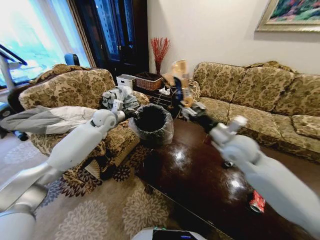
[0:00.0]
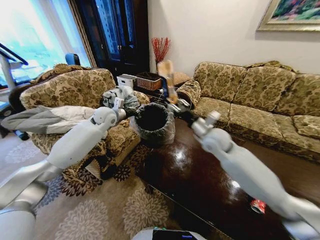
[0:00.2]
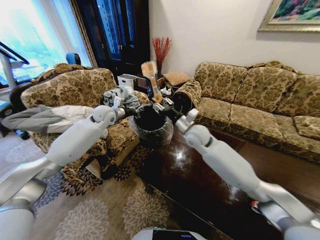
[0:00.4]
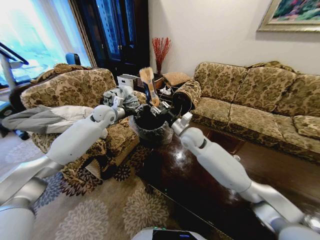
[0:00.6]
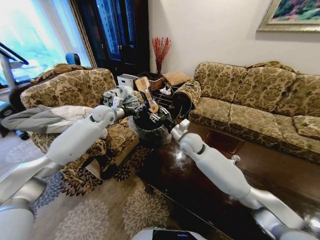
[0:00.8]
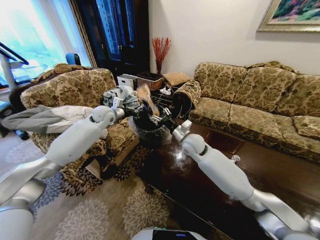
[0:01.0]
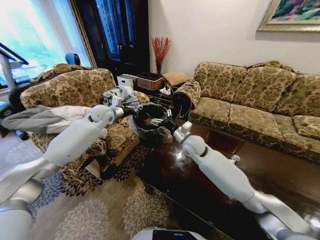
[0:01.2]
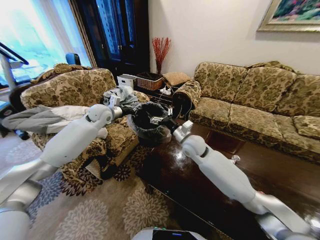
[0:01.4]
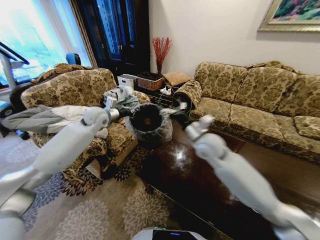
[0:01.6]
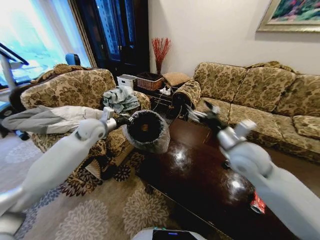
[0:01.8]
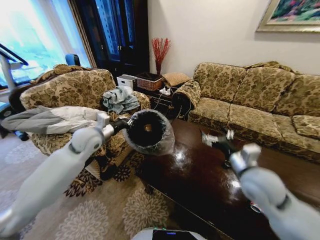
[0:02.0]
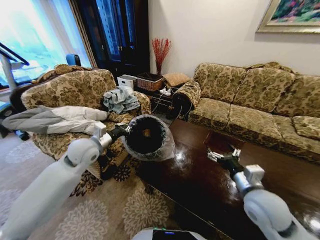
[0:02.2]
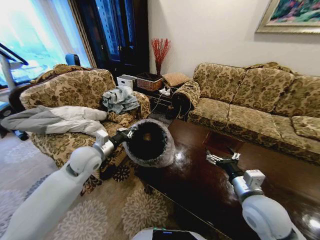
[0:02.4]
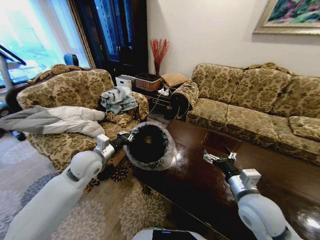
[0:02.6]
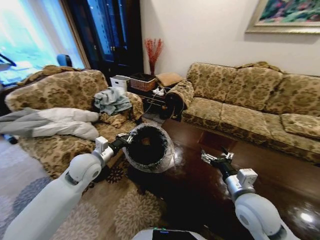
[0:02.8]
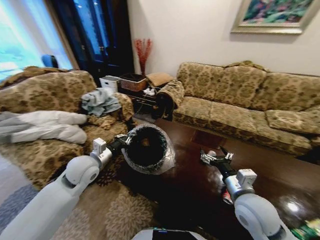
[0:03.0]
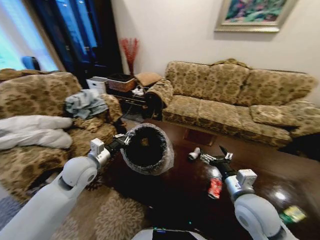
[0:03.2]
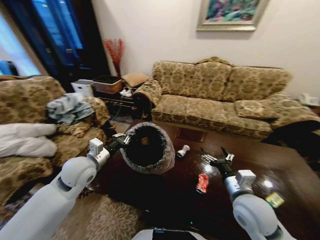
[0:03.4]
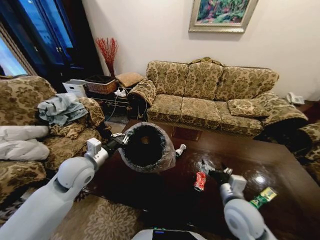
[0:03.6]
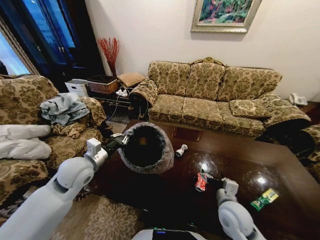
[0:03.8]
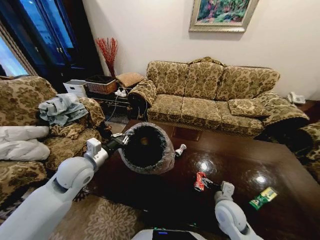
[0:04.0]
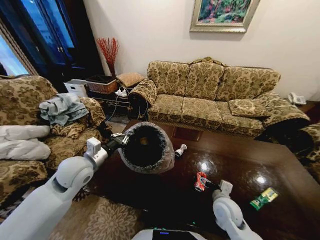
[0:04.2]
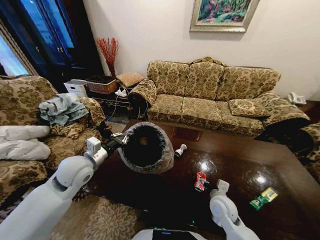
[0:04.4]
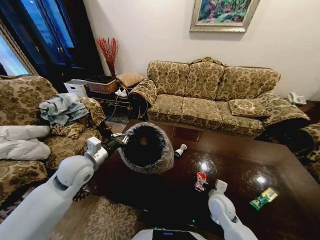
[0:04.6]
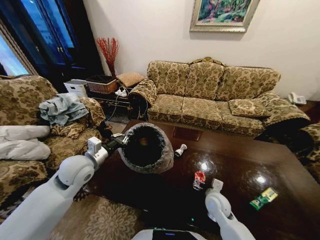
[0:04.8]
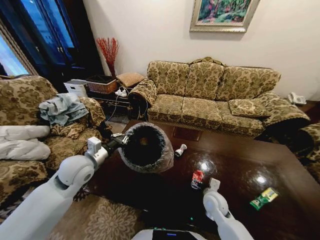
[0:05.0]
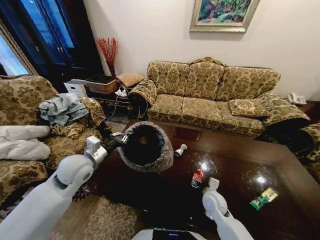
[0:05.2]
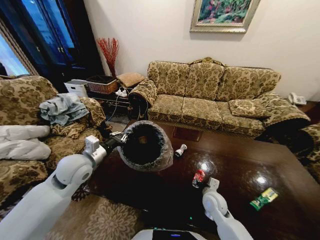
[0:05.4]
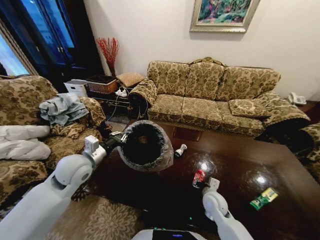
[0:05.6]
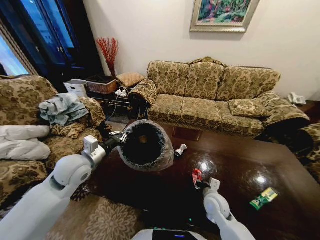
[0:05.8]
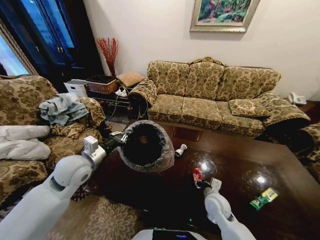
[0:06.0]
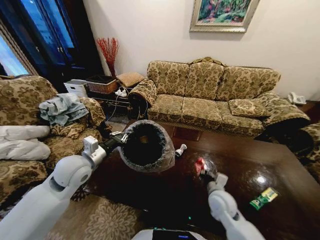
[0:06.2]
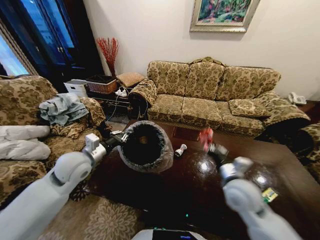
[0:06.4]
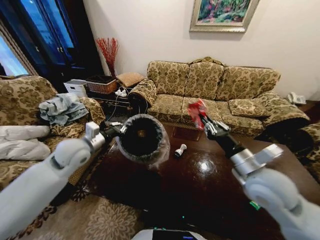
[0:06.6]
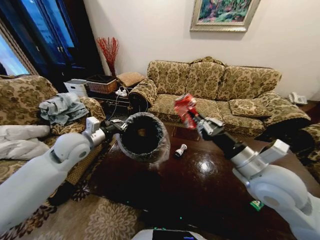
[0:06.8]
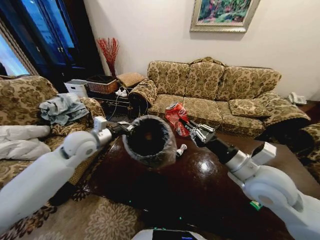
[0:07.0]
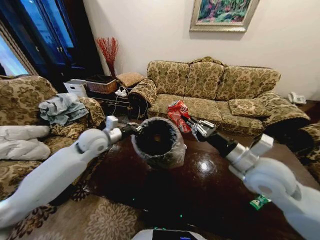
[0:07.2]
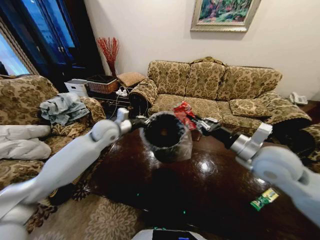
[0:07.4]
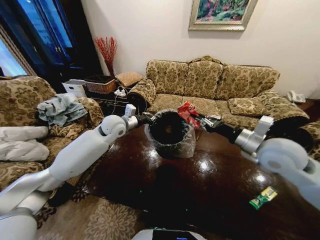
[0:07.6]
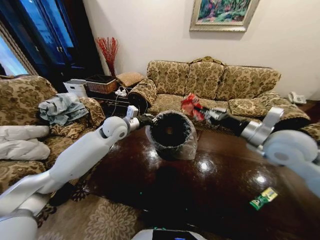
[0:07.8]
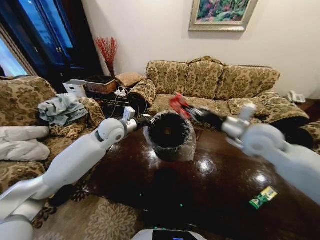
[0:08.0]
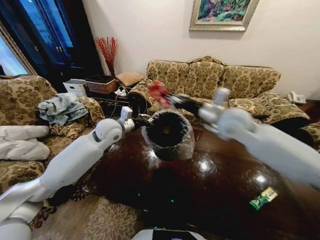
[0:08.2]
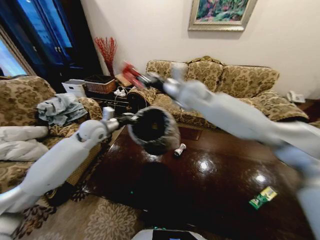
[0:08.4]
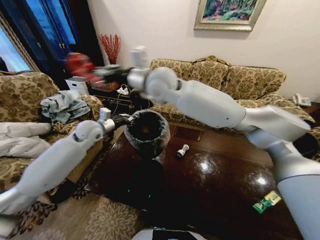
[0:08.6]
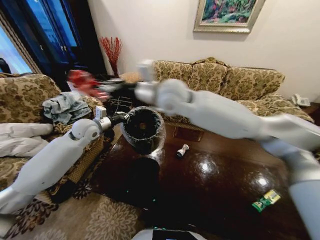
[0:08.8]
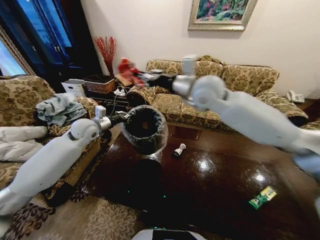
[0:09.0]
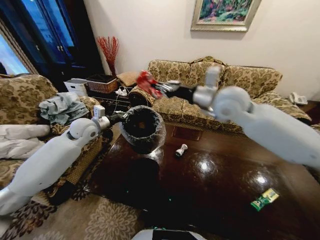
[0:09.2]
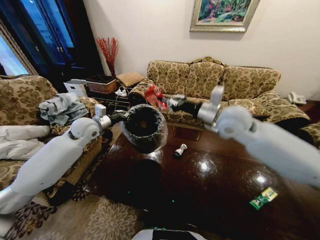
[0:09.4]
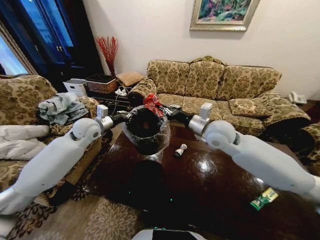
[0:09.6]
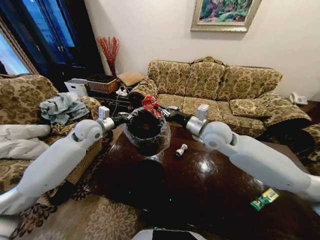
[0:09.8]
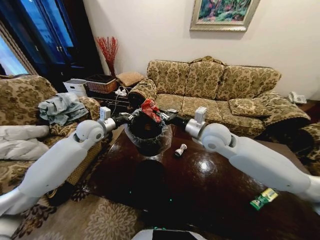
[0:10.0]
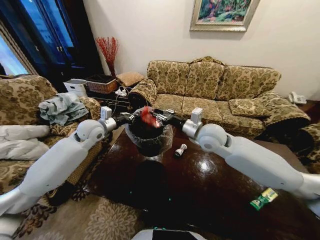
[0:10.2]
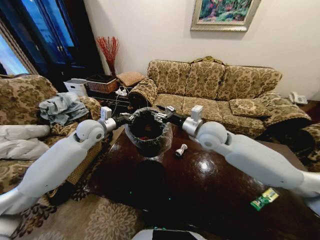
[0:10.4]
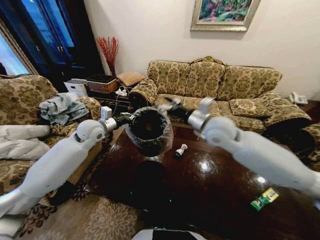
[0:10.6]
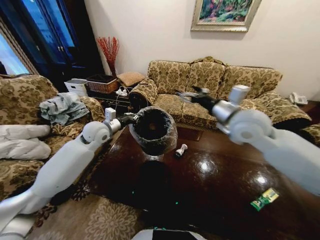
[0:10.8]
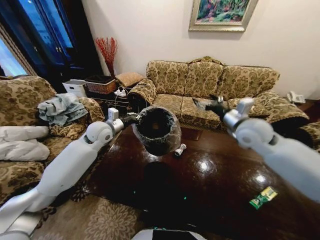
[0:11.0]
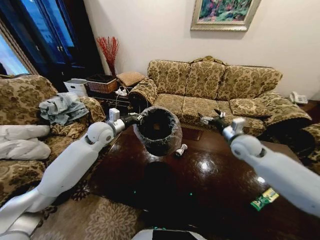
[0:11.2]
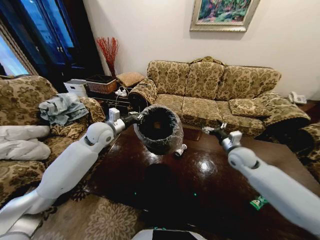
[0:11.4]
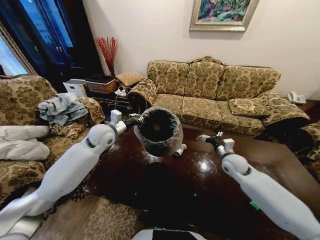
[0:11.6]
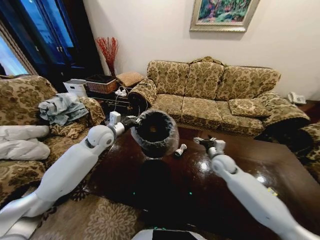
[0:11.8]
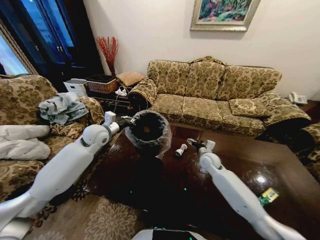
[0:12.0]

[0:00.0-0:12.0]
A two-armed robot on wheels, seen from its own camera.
Task of the whole recording: Move to the front of the table and place the trash on the table into the trash bin.
0:00.0 to 0:01.6: The right gripper goes roughly 5 cm to the left, and opens up.
0:01.6 to 0:03.0: The left gripper travels backward and downward by some 20 cm. Meanwhile the right gripper shifts roughly 20 cm backward, downward and to the right.
0:03.0 to 0:04.4: The right gripper heads downward, covering about 15 cm.
0:04.4 to 0:06.0: The right gripper closes.
0:06.0 to 0:07.6: The right gripper is displaced upward by some 30 cm. Meanwhile the left gripper travels forward and to the right by roughly 20 cm.
0:07.6 to 0:09.0: The right gripper shifts about 25 cm to the left, forward and upward. The left gripper moves to the left, approximately 10 cm.
0:09.0 to 0:10.4: The right gripper is displaced downward by some 15 cm, and opens its fingers.
0:10.4 to 0:12.0: The right gripper goes approximately 25 cm downward, and opens.

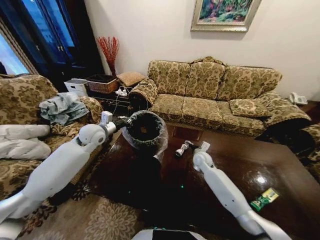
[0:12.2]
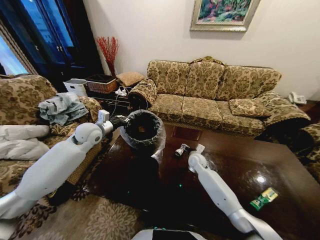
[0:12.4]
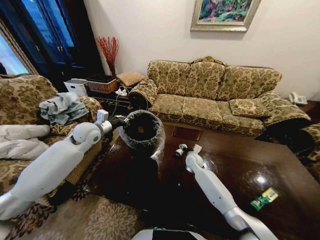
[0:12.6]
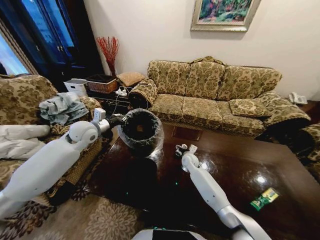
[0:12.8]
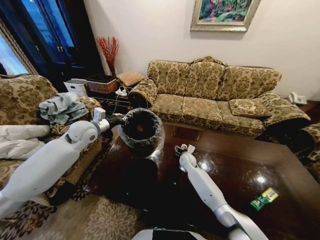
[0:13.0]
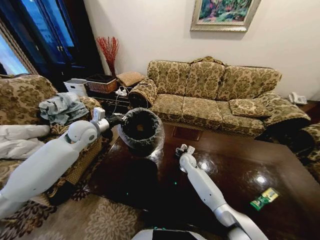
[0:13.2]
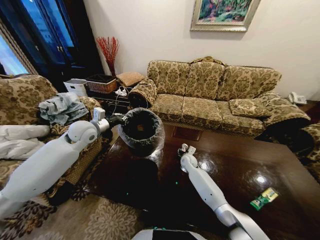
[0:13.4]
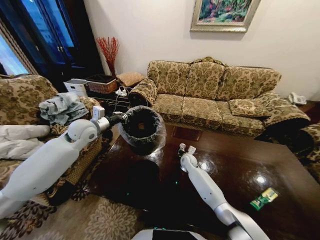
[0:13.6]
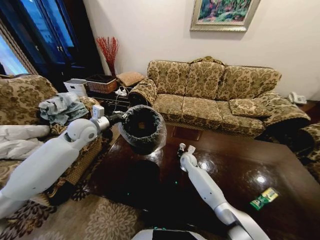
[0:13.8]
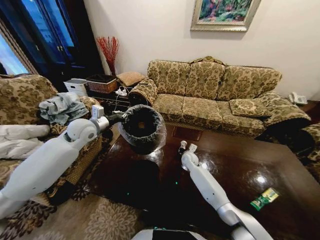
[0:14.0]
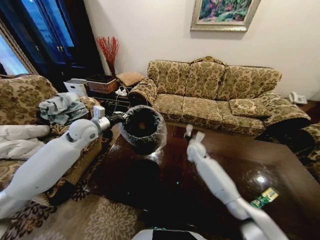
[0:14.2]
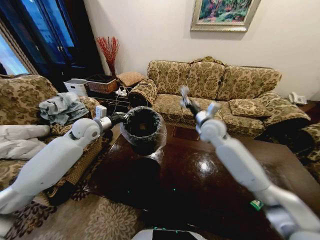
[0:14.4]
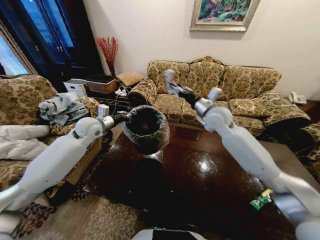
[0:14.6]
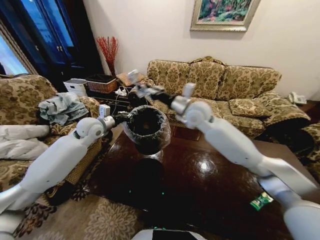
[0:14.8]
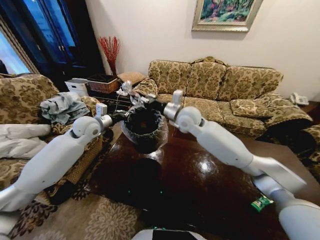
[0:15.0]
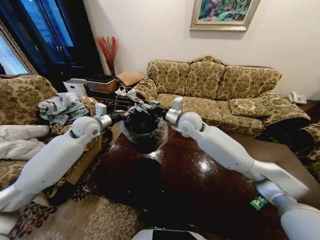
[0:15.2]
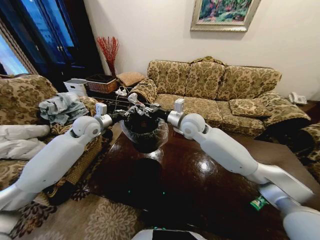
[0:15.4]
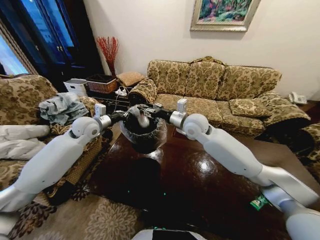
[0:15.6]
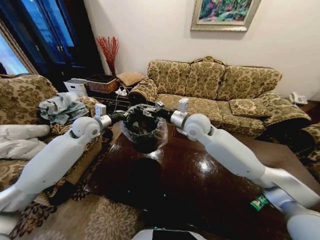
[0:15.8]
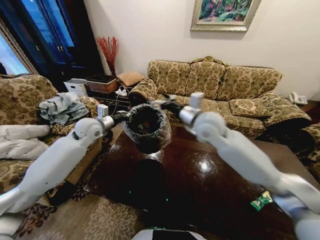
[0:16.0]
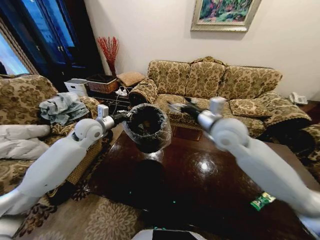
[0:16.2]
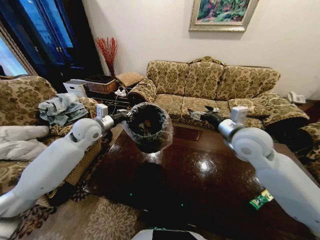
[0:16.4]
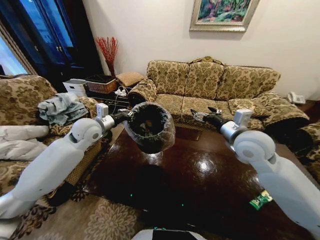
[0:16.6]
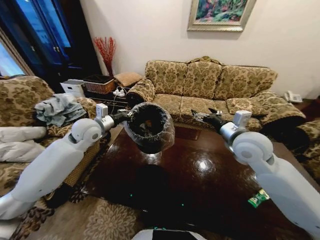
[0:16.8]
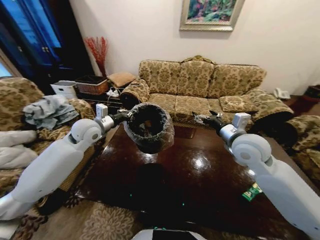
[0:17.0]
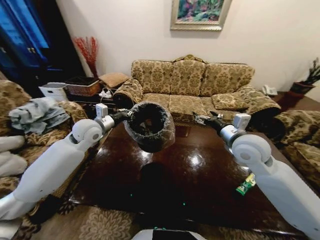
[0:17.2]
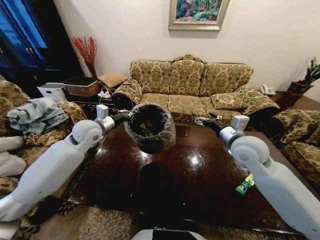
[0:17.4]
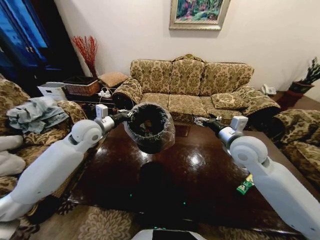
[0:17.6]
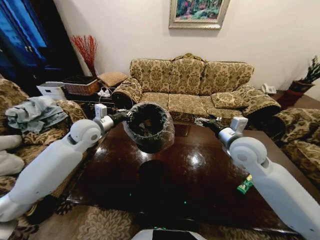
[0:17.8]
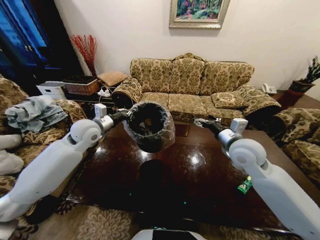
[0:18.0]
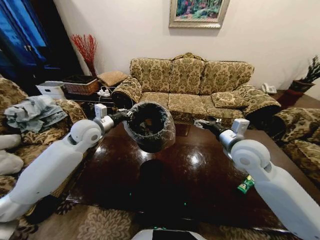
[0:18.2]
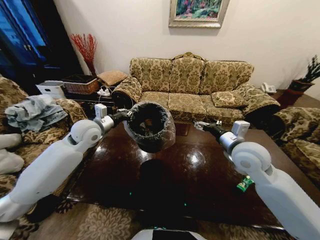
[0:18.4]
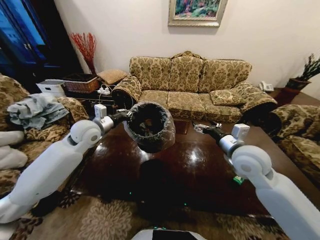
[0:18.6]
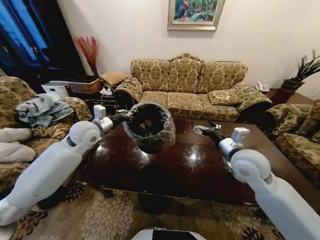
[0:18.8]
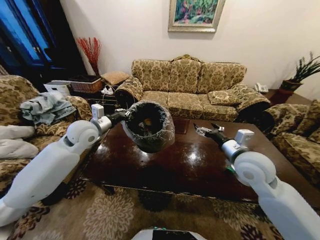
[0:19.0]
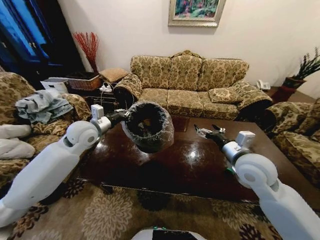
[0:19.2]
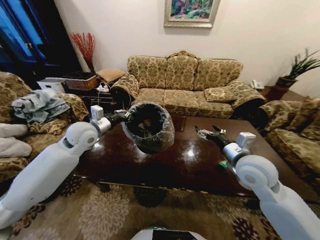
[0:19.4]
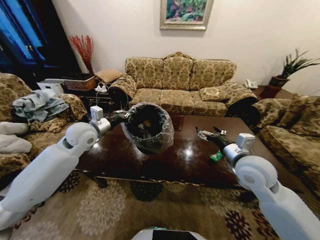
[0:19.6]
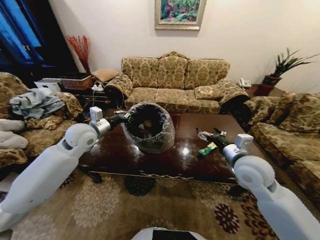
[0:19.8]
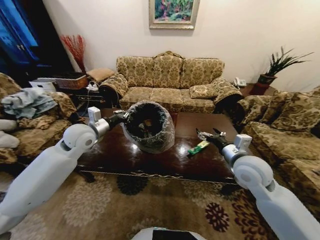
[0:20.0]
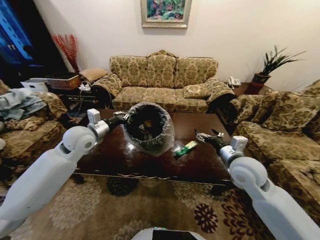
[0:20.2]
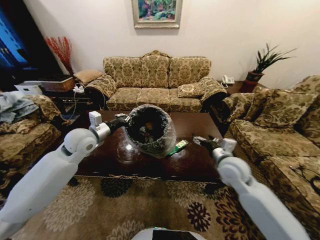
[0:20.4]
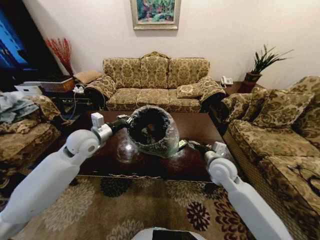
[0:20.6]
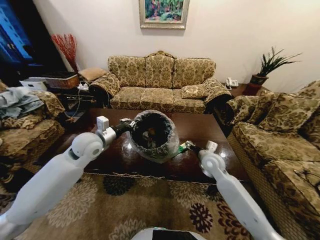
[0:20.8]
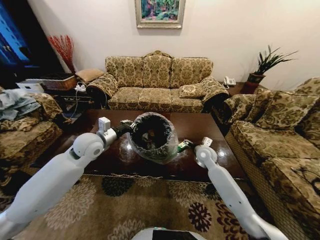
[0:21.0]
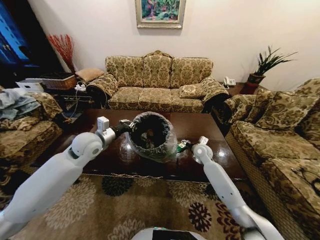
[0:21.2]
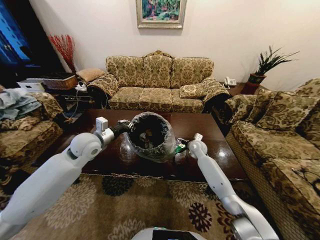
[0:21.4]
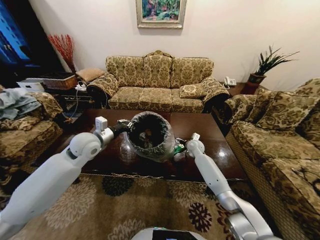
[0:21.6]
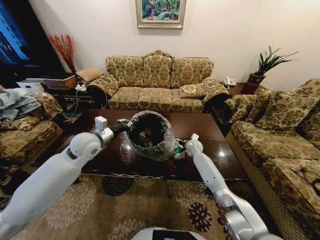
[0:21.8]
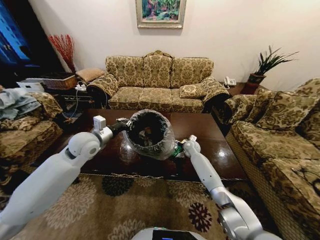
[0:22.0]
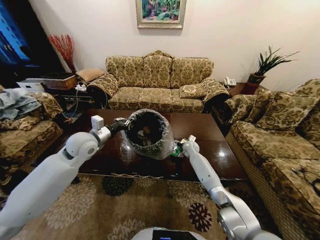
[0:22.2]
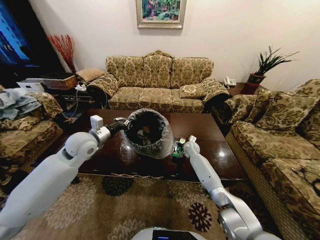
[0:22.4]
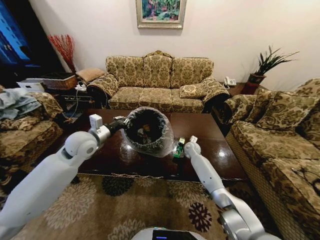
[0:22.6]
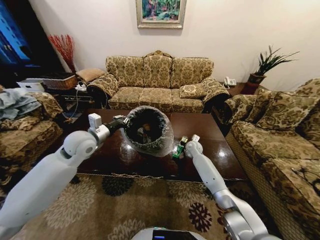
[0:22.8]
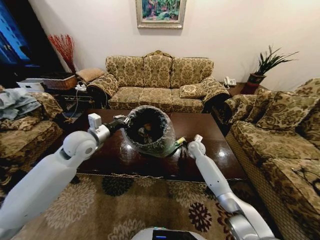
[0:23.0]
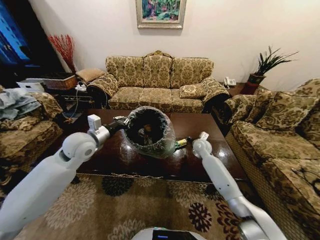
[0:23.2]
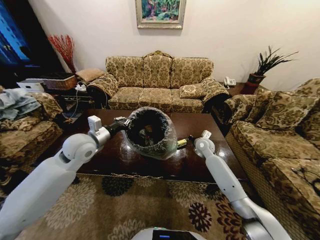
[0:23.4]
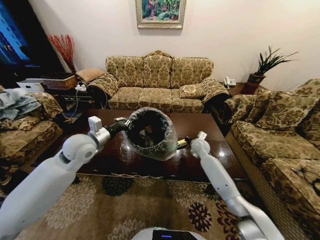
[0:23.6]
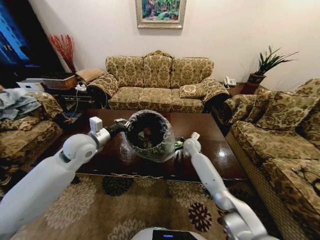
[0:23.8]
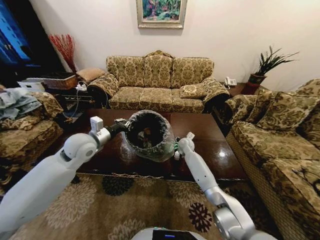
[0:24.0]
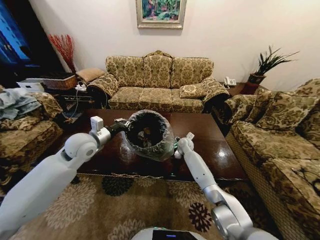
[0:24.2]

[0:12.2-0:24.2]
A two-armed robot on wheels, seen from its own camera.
Task of the whole recording: Move to the front of the table and place the trash on the table into the trash bin.
0:12.2 to 0:13.8: The right gripper shifts roughly 10 cm to the left and downward, and closes its fingers.
0:13.8 to 0:15.2: The right gripper goes roughly 30 cm upward.
0:15.2 to 0:16.6: The right gripper moves to the right and backward, approximately 20 cm, and opens.
0:18.2 to 0:19.8: The right gripper changes place by about 5 cm.
0:19.8 to 0:21.2: The right gripper travels forward and downward by approximately 25 cm.
0:21.2 to 0:22.6: The right gripper shifts some 10 cm forward and downward, and closes.
0:22.6 to 0:24.2: The right gripper closes, then reopens.
